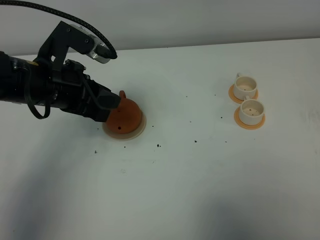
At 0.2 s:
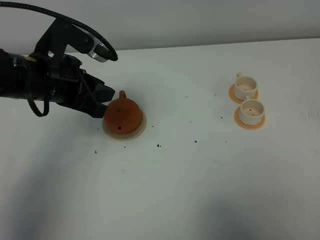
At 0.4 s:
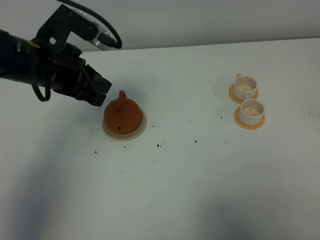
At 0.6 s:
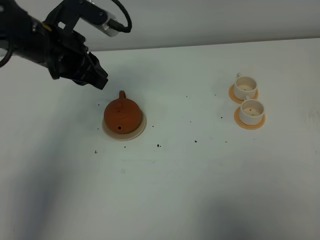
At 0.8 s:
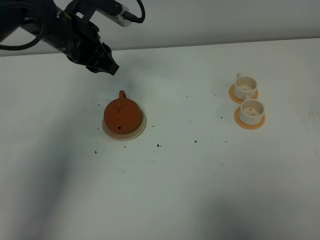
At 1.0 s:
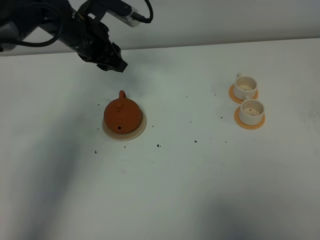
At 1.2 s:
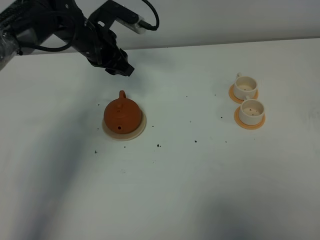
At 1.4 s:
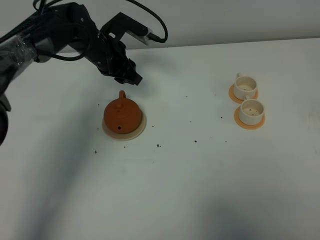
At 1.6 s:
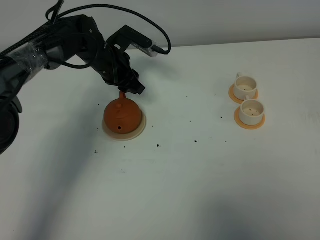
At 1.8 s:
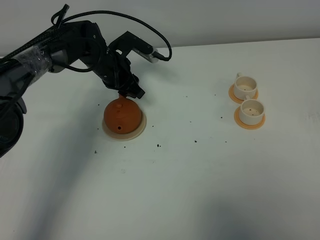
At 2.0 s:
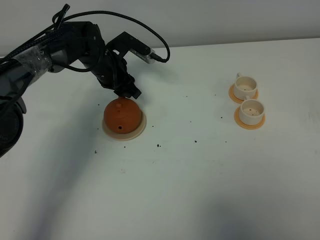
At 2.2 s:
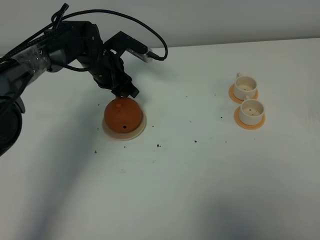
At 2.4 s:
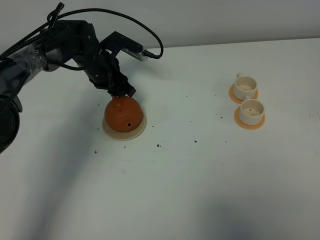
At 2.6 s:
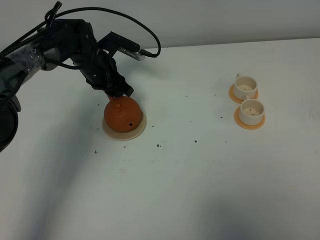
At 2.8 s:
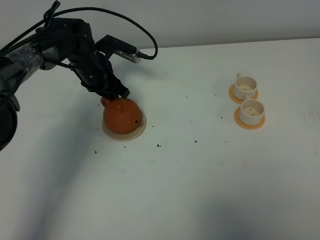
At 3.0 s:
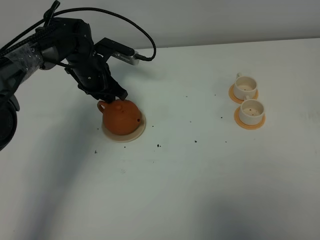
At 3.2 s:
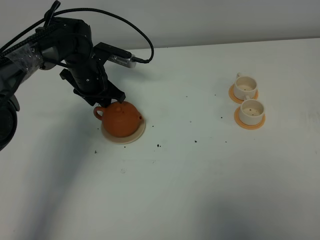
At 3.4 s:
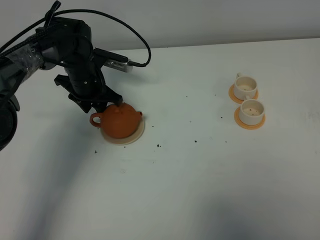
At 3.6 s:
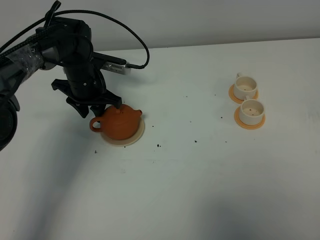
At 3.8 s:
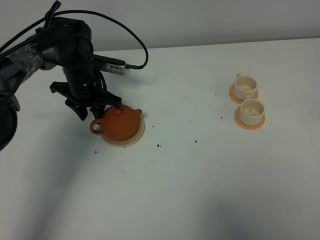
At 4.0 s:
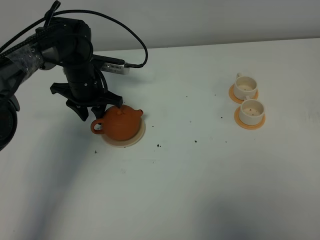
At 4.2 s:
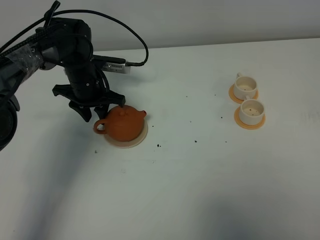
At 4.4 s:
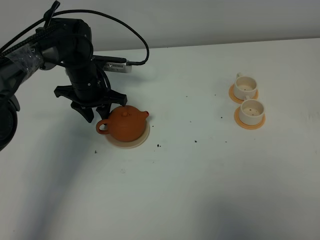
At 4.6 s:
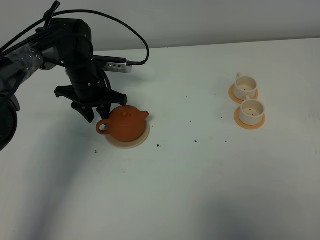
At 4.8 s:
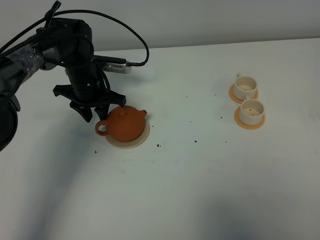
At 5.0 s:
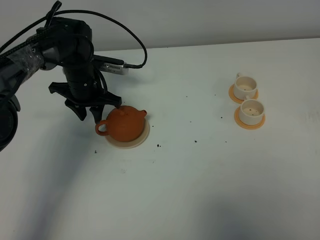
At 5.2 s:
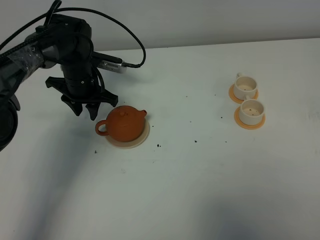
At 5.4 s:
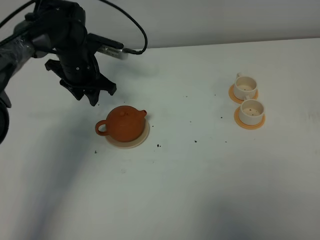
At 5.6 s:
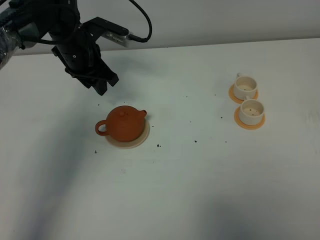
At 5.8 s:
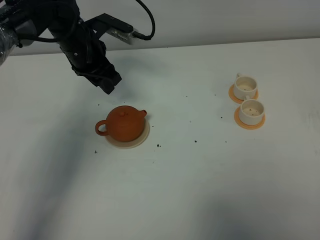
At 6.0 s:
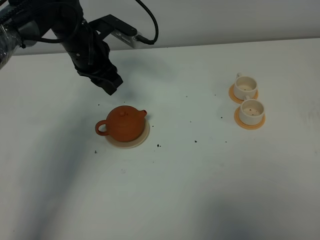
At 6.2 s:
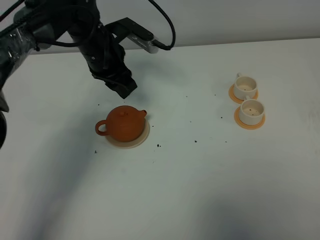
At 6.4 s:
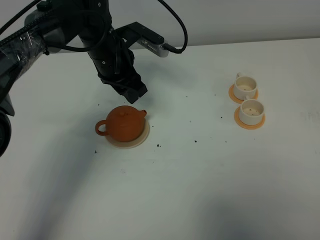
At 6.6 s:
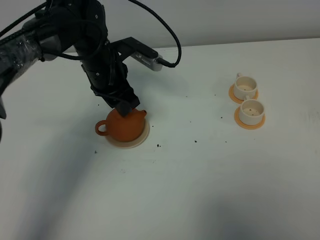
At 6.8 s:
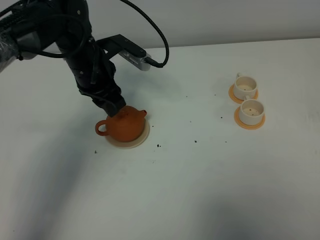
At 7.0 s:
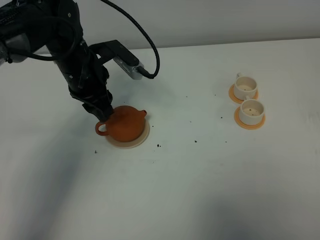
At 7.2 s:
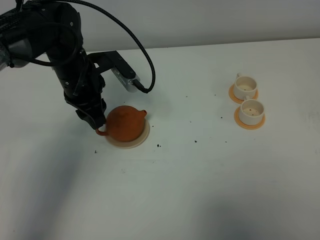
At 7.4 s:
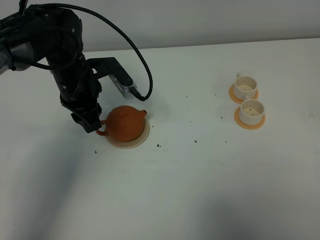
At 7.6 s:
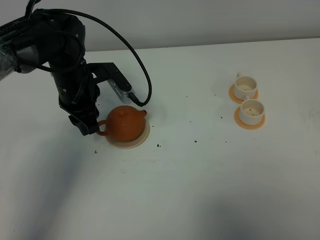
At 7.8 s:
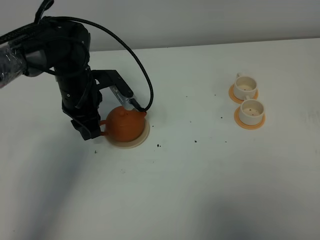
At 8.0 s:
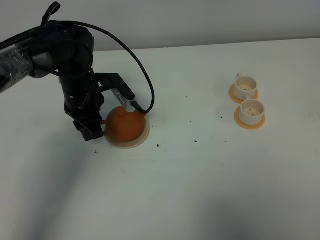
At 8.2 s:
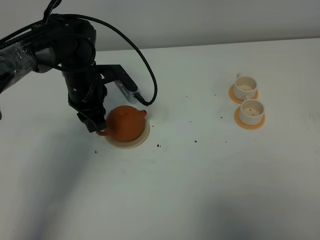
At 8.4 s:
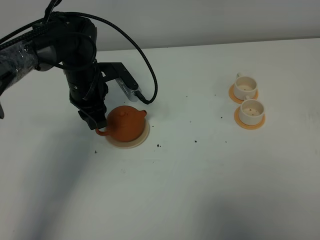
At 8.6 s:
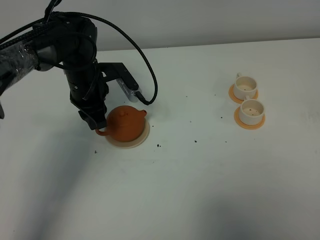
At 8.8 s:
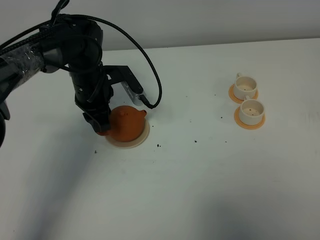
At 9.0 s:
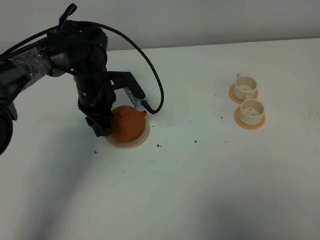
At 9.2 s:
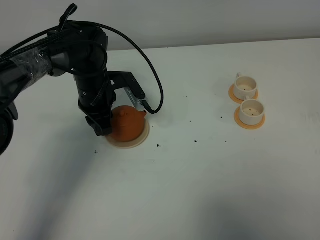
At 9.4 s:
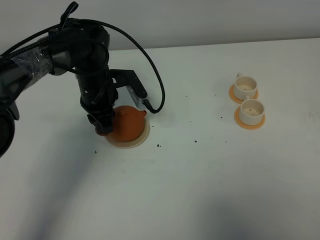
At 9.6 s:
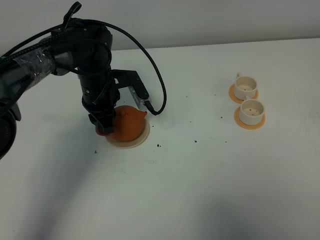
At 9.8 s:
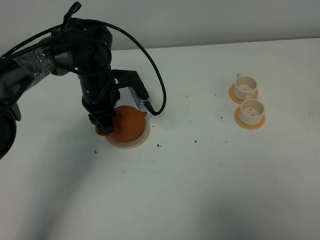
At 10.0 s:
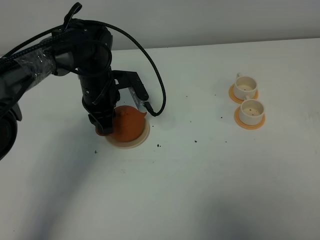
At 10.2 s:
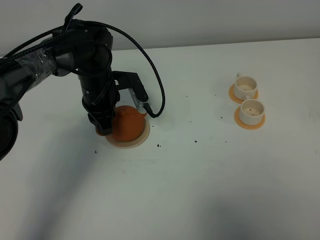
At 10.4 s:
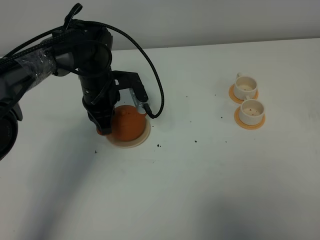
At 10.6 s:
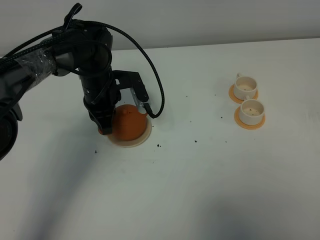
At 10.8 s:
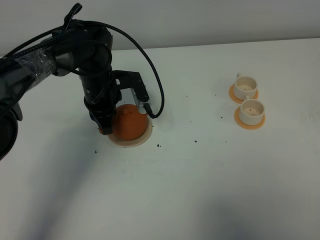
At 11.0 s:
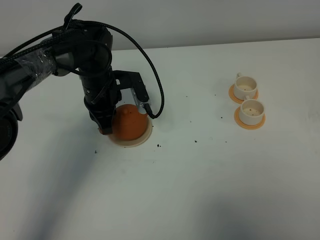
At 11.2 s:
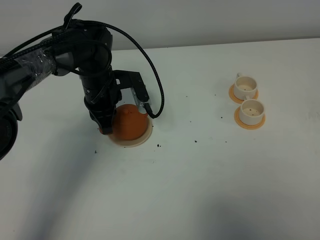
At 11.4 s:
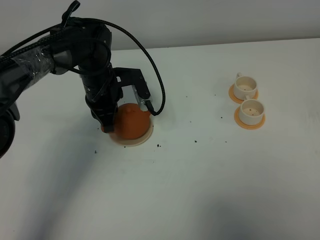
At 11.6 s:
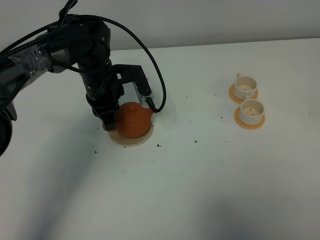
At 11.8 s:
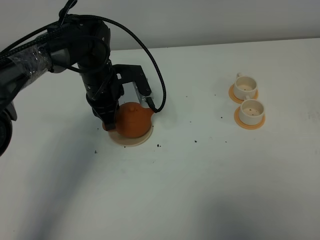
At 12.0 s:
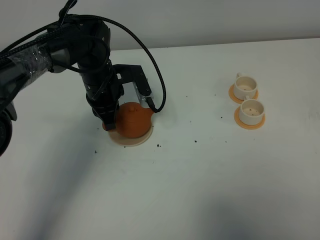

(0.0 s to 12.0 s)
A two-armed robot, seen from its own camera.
Task of the whole recording: grasp the brown teapot and pour the tea into the two white teacups one by one, put the brown teapot back in its original place.
0.0 s - 1.6 s: The left gripper shifts about 20 cm forward and downward.
1.6 s - 3.0 s: The grippers move only a little.
4.4 s - 6.0 s: The left gripper travels upward by approximately 10 cm.
6.0 s - 7.6 s: The left gripper moves backward, some 5 cm.
7.6 s - 9.0 s: The left gripper shifts by approximately 5 cm.
9.0 s - 10.4 s: The left gripper closes.
10.4 s - 12.0 s: The grippers stay close to where they were, moving slightly.

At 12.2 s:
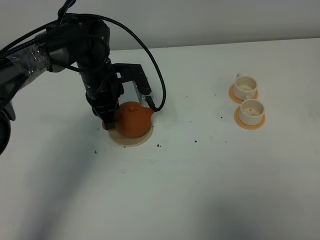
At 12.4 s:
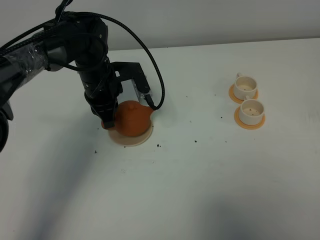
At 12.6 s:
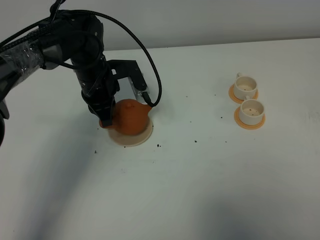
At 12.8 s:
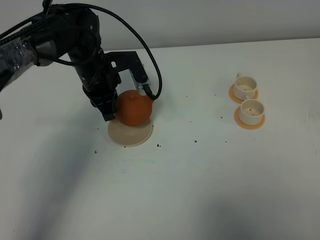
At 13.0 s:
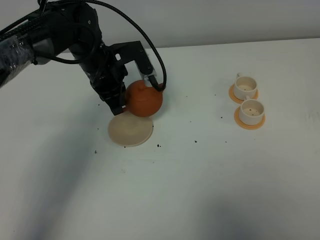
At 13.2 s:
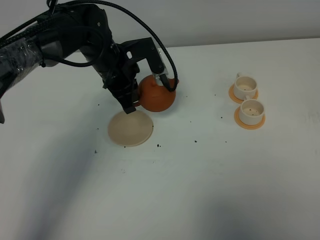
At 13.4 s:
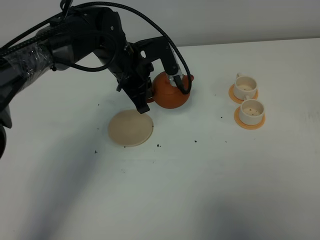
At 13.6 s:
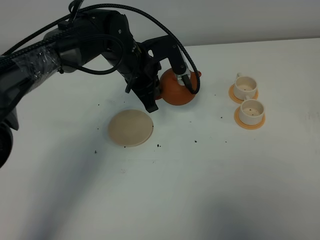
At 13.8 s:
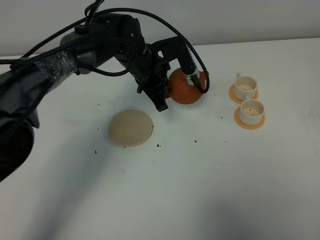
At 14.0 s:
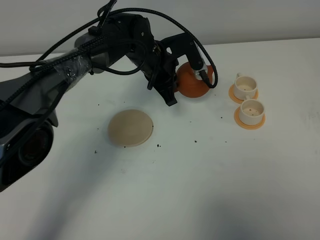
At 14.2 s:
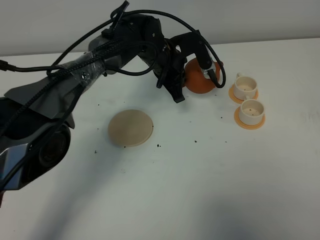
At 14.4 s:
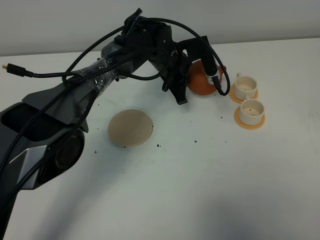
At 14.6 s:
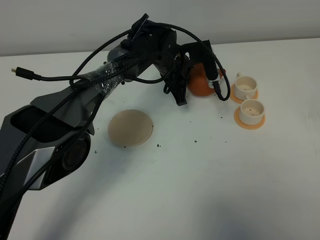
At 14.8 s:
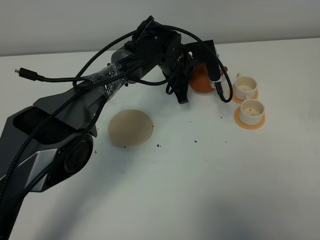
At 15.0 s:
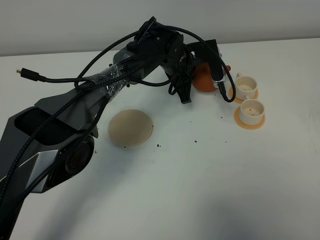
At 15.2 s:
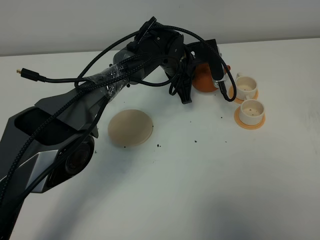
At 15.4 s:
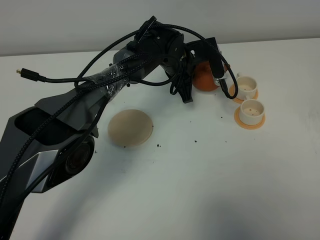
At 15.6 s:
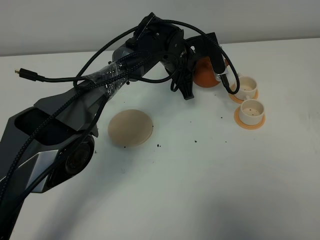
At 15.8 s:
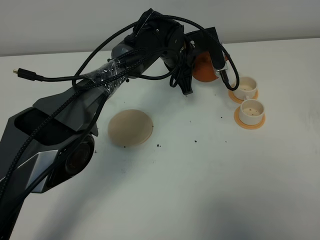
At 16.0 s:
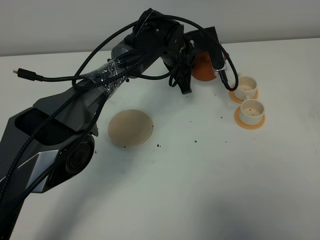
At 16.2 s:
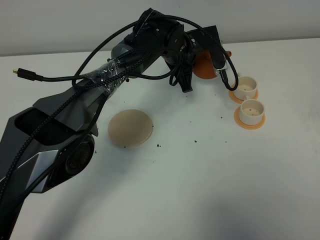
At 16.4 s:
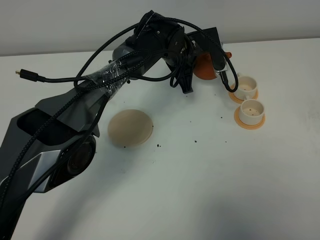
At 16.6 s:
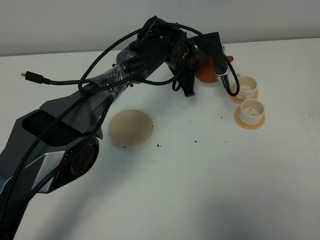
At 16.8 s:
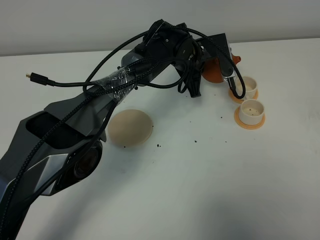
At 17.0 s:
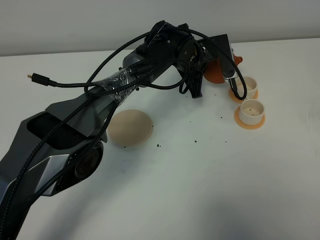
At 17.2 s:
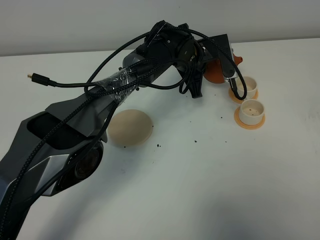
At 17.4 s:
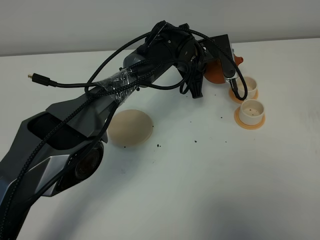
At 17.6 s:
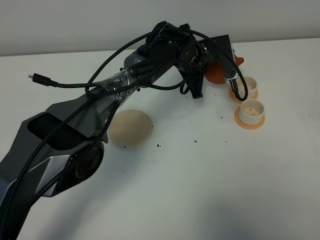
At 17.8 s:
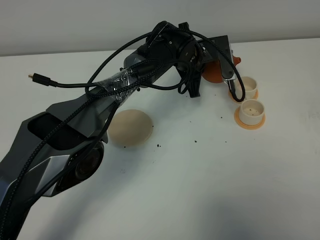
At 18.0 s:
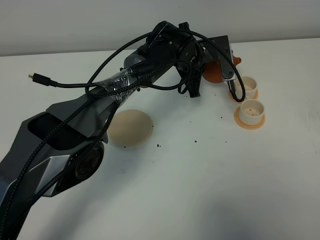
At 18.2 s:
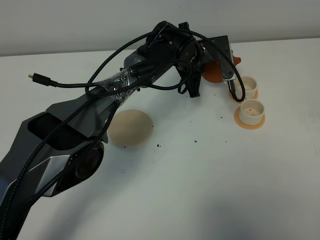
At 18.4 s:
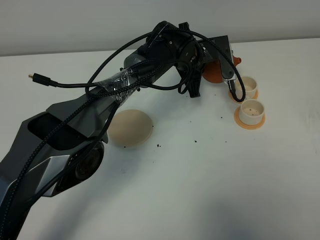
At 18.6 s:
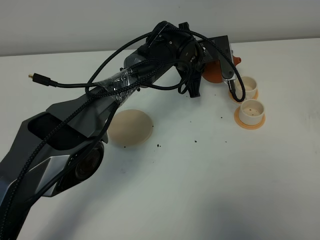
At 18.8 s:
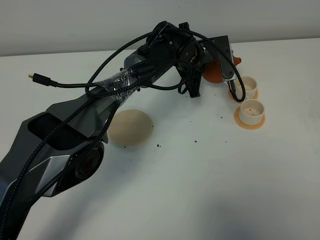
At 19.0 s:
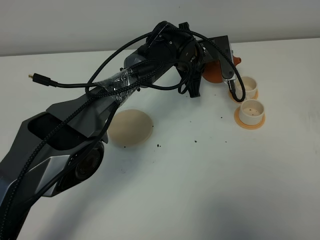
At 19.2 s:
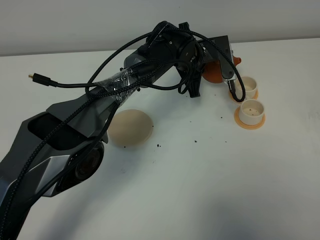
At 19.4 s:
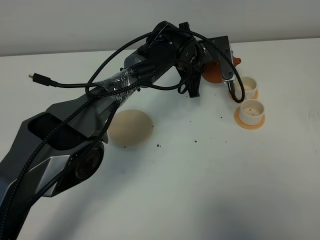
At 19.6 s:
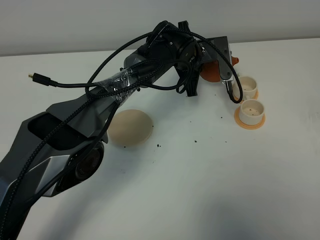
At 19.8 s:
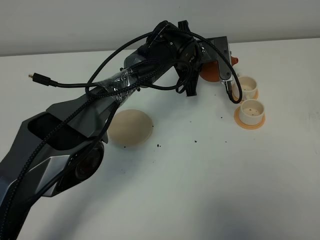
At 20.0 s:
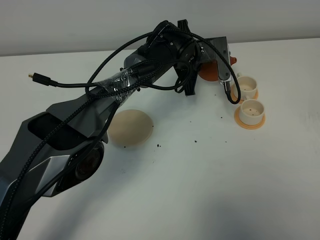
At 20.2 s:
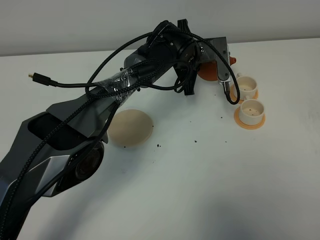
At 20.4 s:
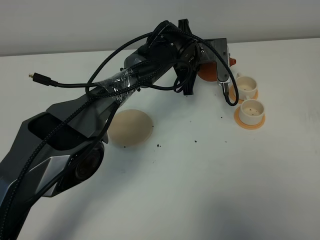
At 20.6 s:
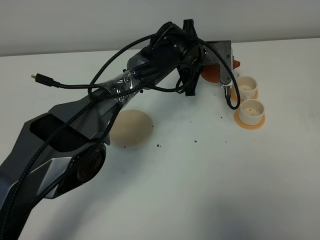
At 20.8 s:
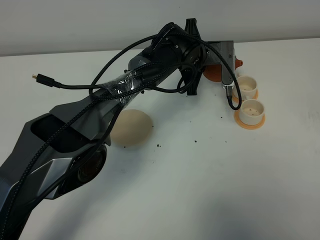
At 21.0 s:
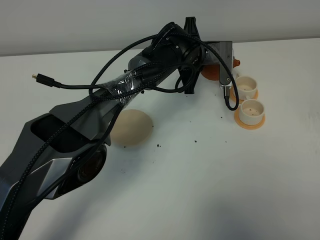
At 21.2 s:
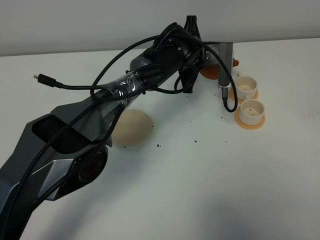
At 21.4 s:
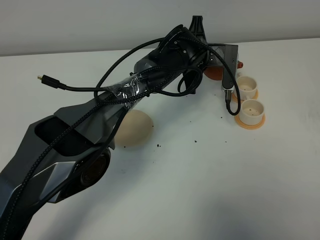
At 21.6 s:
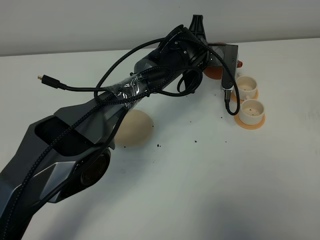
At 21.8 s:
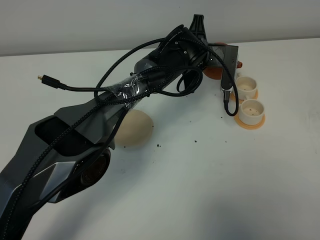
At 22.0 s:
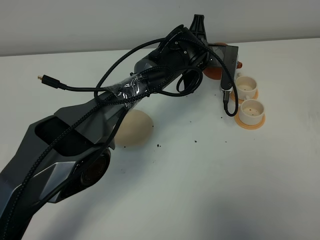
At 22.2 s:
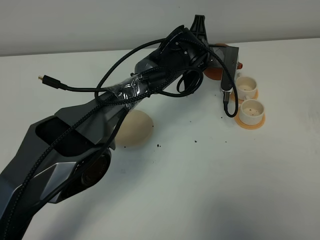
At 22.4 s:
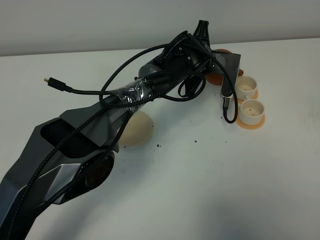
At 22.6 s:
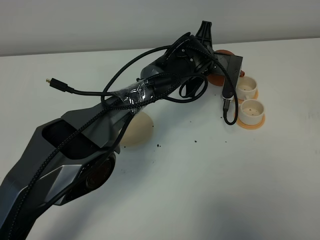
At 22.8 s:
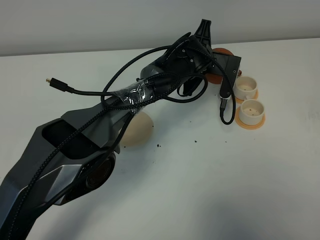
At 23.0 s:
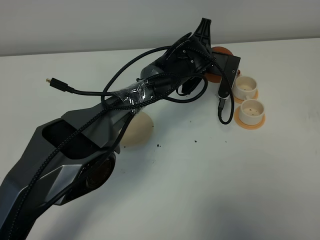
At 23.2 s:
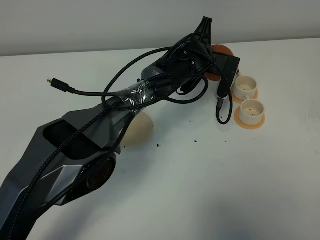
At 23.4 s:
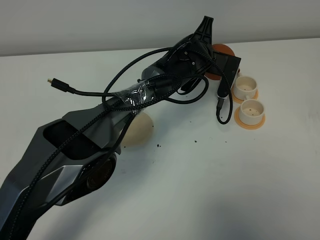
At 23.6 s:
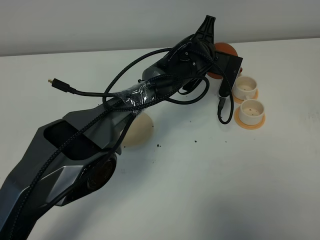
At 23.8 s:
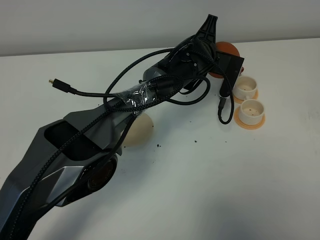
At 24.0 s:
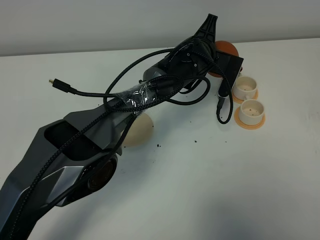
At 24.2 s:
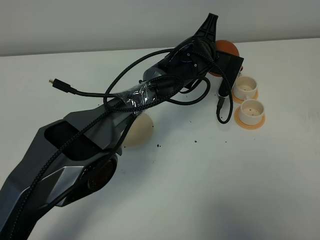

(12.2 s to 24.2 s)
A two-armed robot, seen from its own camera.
Task of the whole recording: grasp the brown teapot and pour the tea into the two white teacups one by one, put the brown teapot back in its original place.
12.2 s - 13.8 s: The left gripper shifts approximately 10 cm to the right.
13.8 s - 15.2 s: The left gripper travels to the right by about 5 cm.
15.2 s - 18.2 s: The grippers stay close to where they were, moving slightly.
18.2 s - 19.8 s: Both grippers stay about where they are.
19.8 s - 21.2 s: The grippers make only small movements.
21.2 s - 22.6 s: The grippers stay close to where they were, moving slightly.
22.6 s - 24.2 s: The grippers make only small movements.
